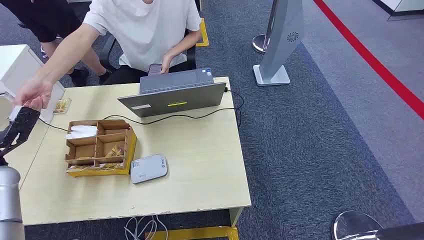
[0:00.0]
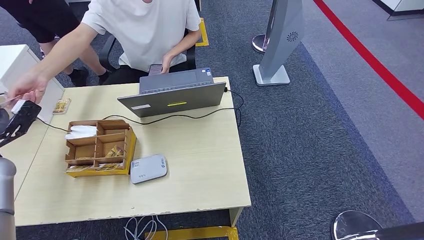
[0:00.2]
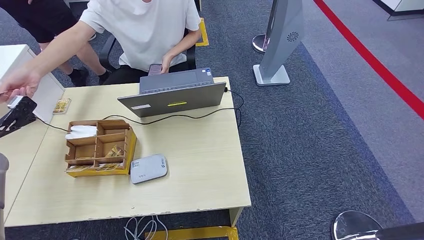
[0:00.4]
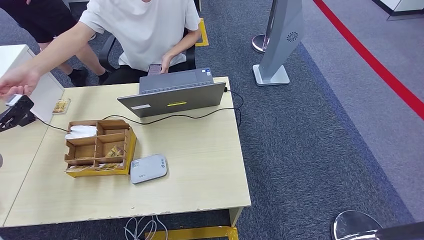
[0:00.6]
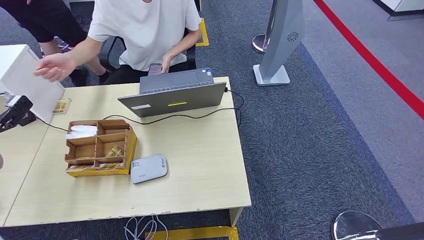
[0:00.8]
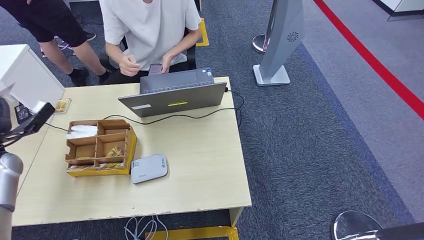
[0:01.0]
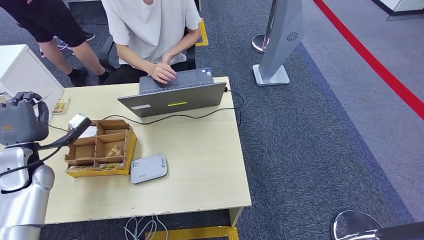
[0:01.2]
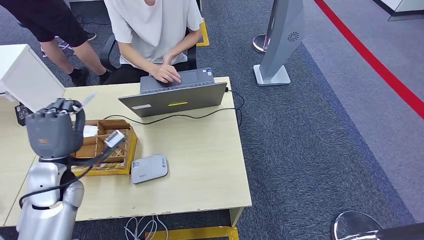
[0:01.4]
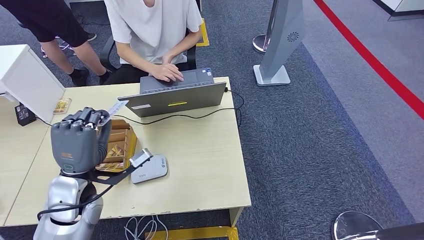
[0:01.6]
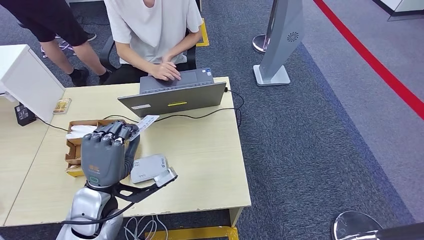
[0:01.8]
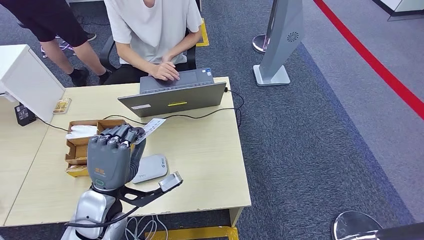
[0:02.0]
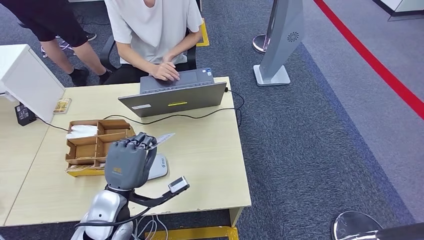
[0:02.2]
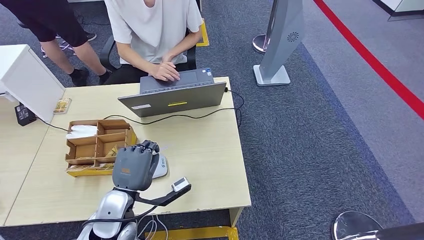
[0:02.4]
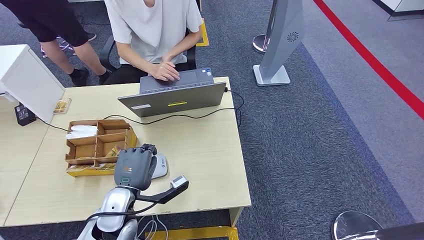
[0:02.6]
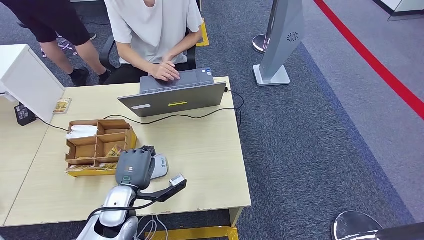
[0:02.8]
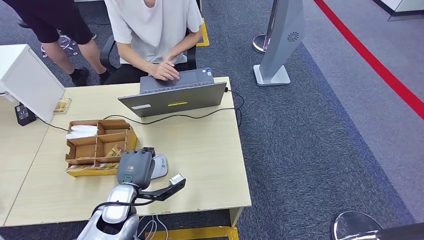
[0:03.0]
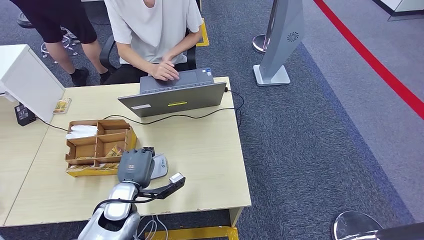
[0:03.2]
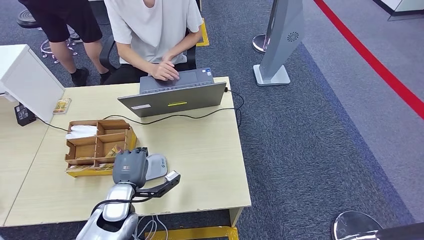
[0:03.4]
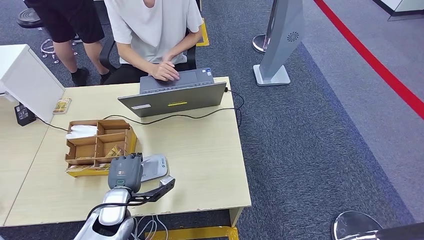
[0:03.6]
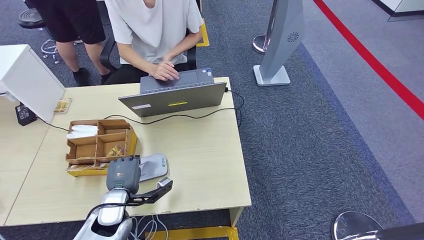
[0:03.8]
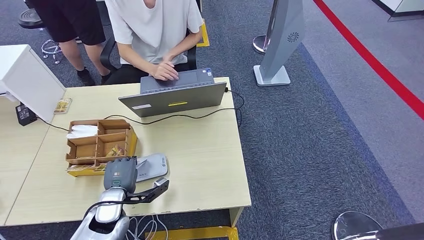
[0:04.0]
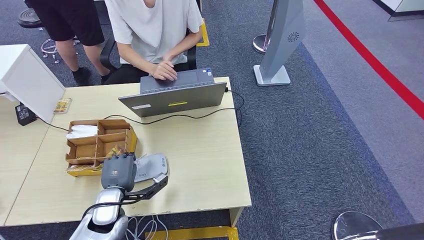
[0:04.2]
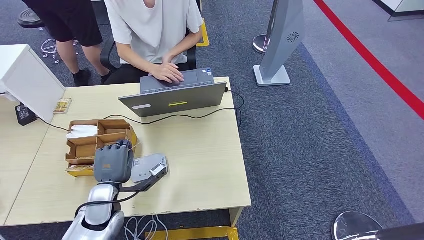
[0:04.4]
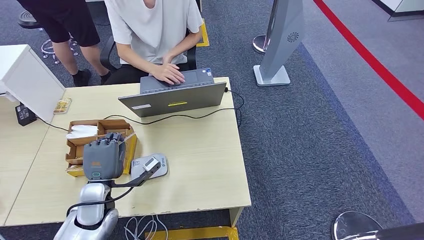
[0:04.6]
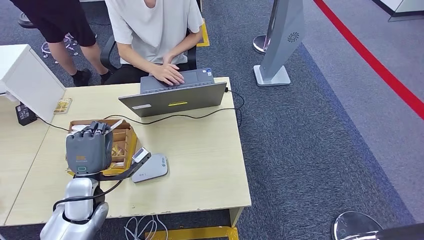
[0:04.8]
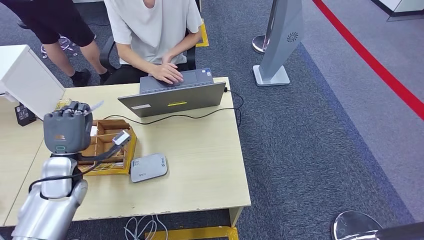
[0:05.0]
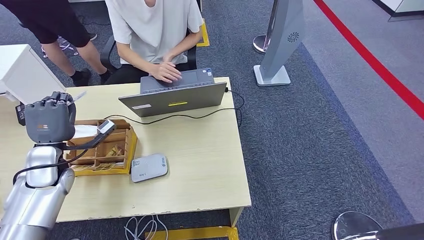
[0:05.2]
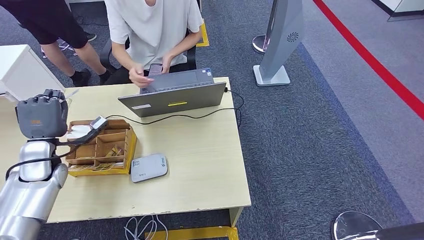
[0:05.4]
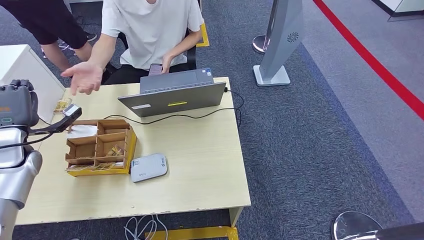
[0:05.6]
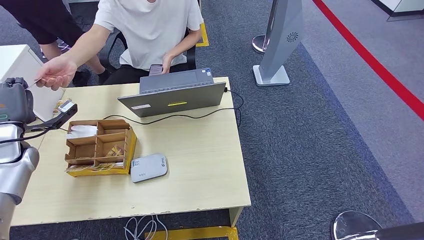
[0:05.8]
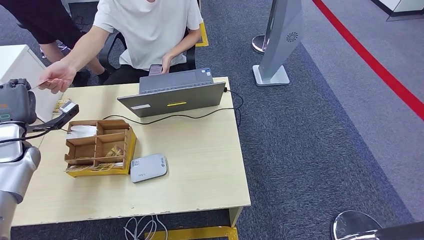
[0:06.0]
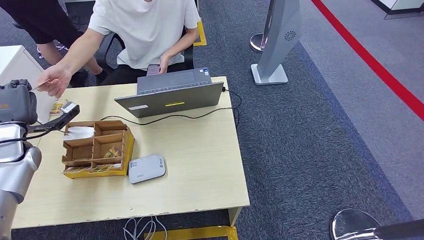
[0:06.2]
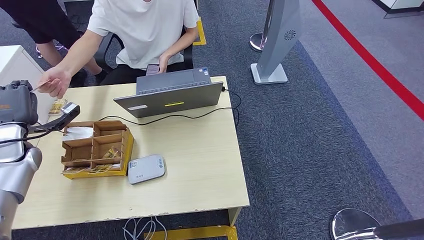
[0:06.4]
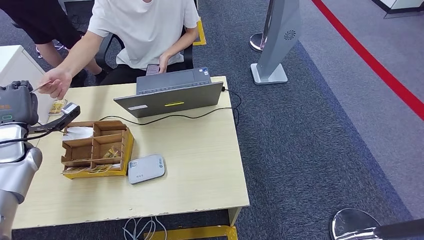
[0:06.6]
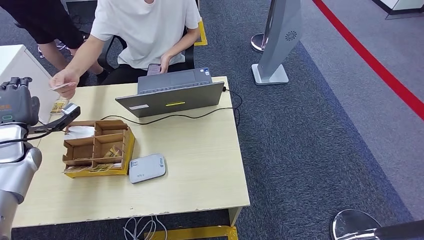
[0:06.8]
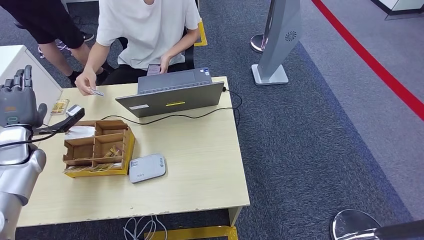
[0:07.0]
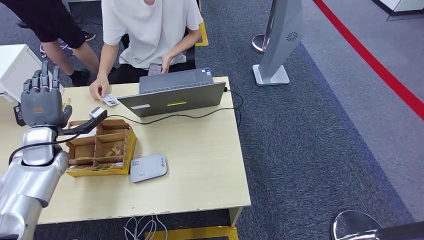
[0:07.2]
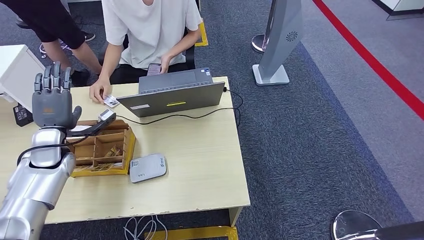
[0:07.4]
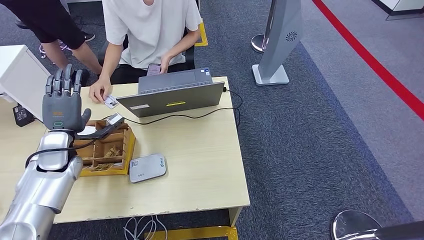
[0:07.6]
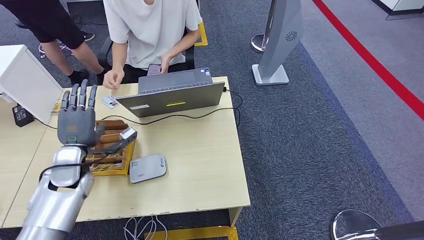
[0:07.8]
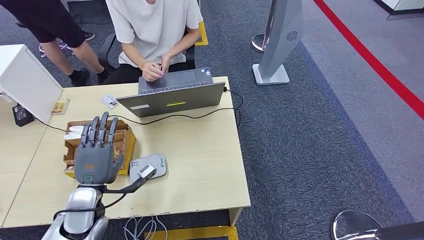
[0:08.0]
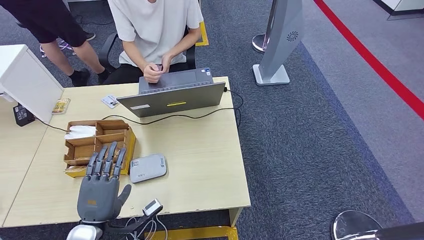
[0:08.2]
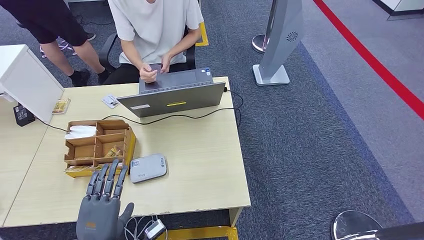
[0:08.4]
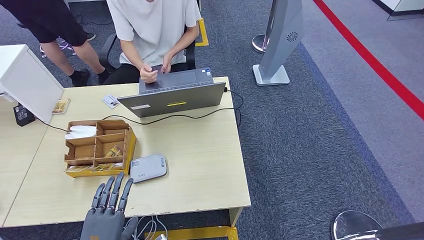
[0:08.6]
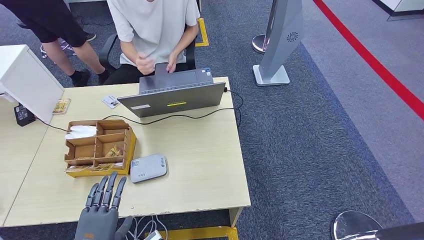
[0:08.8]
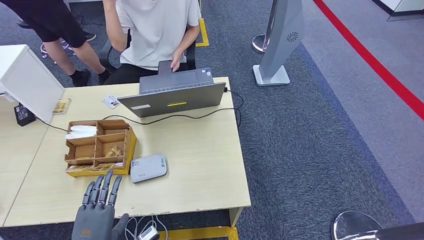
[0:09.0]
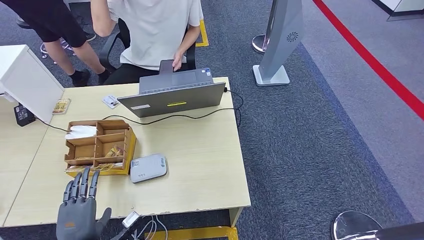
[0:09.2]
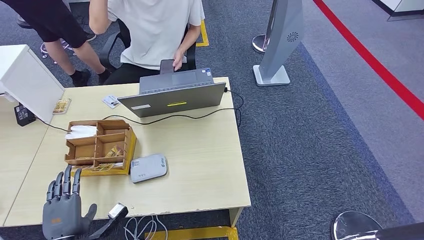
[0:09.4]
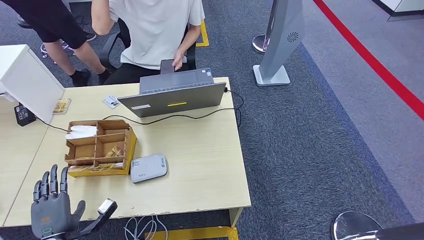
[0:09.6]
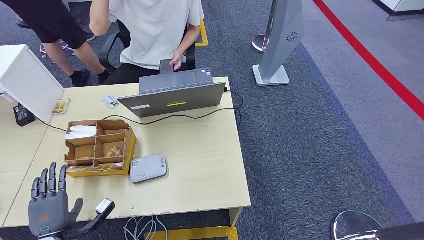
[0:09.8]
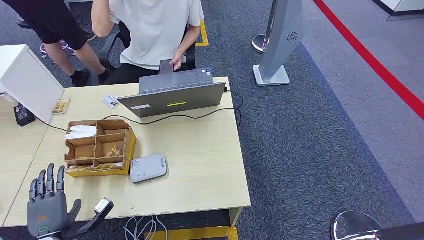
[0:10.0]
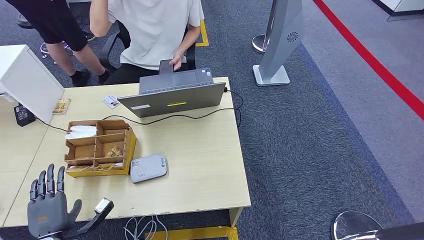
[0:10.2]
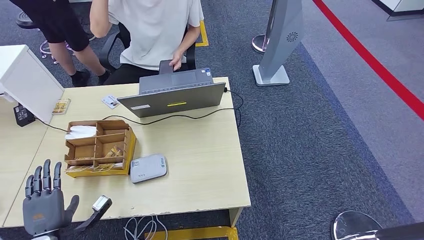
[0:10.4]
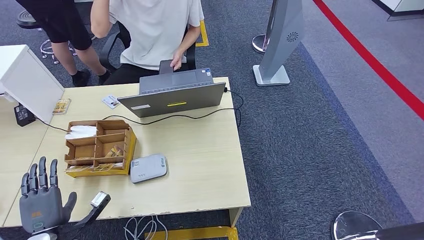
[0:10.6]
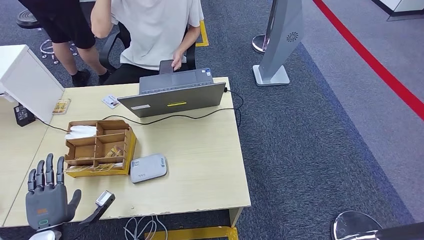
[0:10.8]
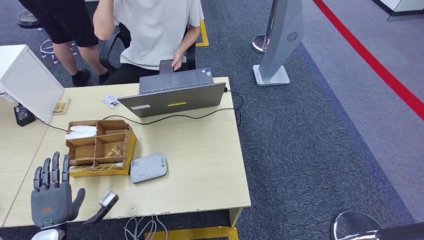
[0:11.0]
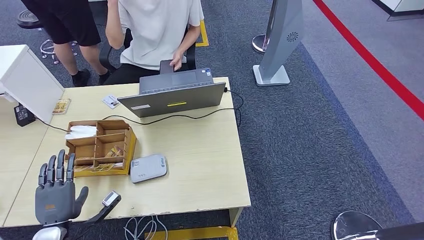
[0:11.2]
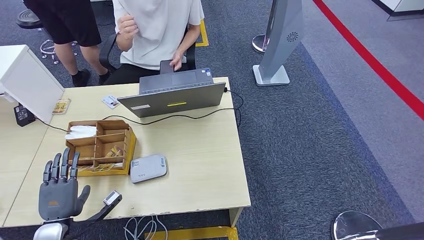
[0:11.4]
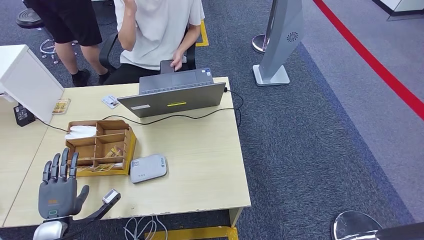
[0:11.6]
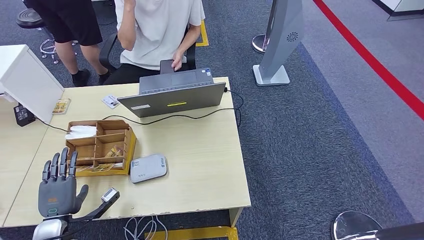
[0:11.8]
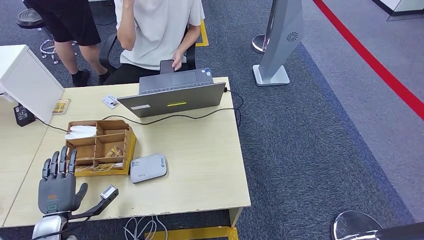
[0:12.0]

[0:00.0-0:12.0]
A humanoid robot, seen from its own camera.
Step, 0:00.0 to 0:01.4: Take the ID card from the person's hand.
Step, 0:01.6 to 0:05.4: Place the ID card on the card reader.
Step, 0:05.6 to 0:08.8: Hand the ID card to the person.
0:01.6 to 0:03.0: The left hand moves downward and to the right, some 10 cm.
0:03.0 to 0:04.4: There are only small adjustments of the hands.
0:04.4 to 0:06.0: The left hand shifts roughly 30 cm to the left, forward and upward.
0:06.0 to 0:07.6: The left hand travels to the right by about 10 cm.
0:07.6 to 0:09.0: The left hand goes some 30 cm backward.
0:09.0 to 0:10.4: The left hand goes some 15 cm to the left and forward.
0:10.4 to 0:12.0: The hands move only a little.

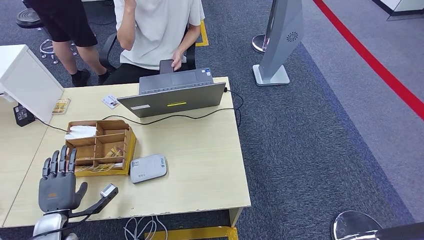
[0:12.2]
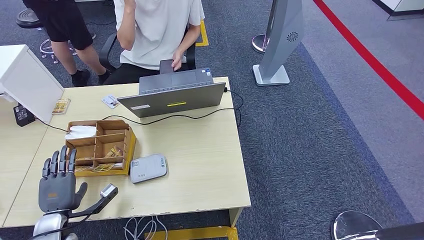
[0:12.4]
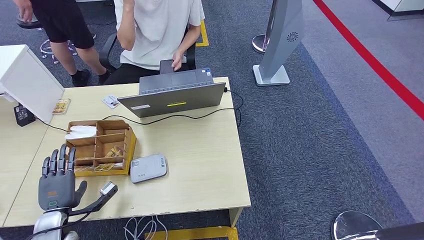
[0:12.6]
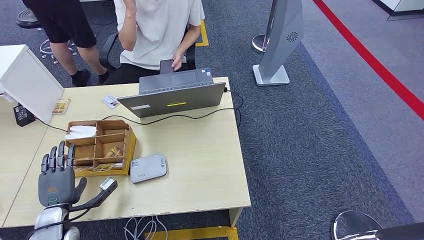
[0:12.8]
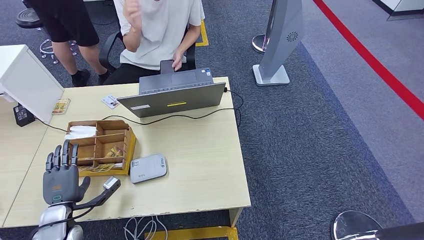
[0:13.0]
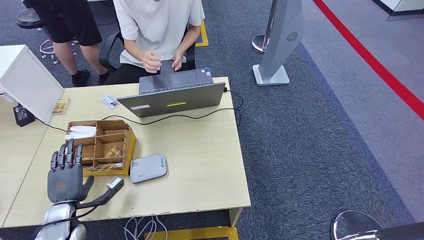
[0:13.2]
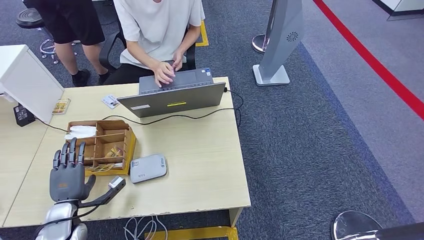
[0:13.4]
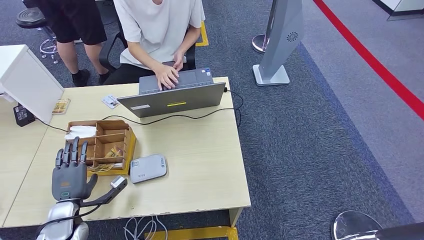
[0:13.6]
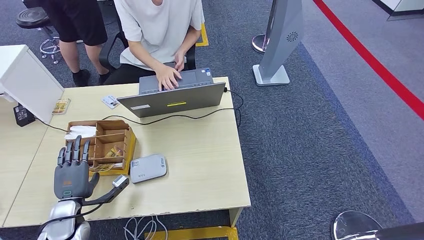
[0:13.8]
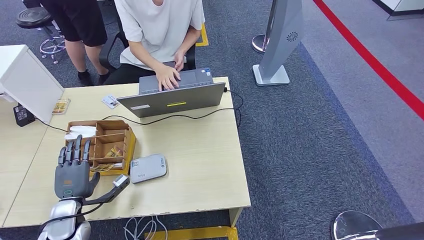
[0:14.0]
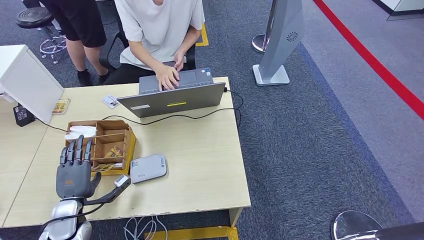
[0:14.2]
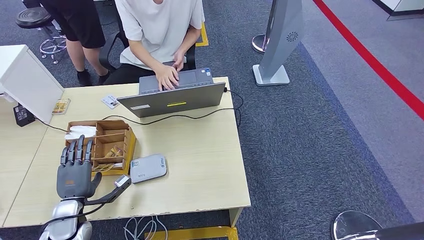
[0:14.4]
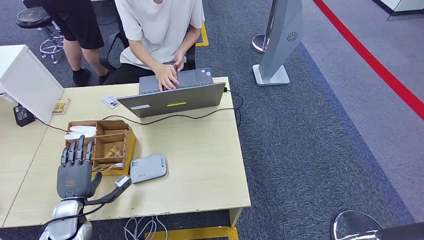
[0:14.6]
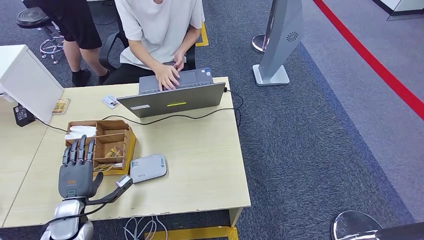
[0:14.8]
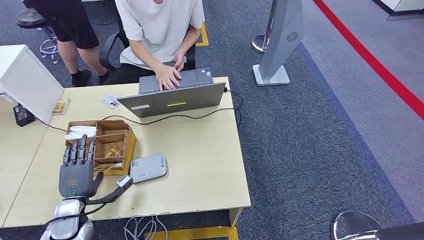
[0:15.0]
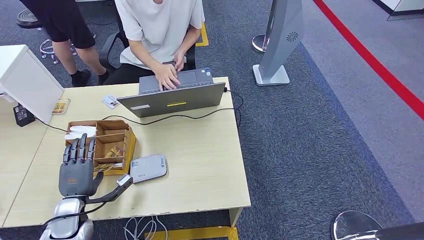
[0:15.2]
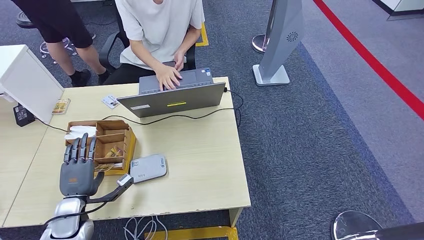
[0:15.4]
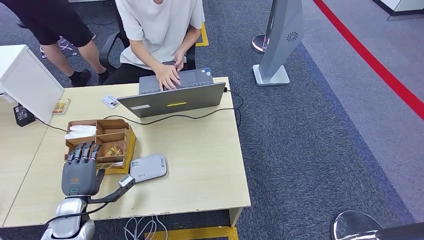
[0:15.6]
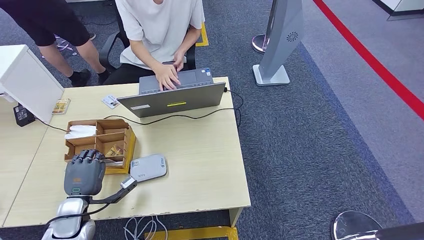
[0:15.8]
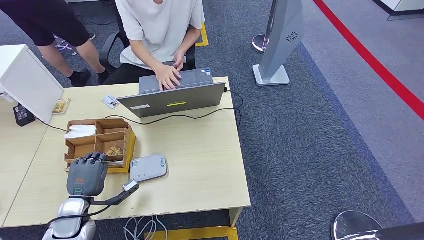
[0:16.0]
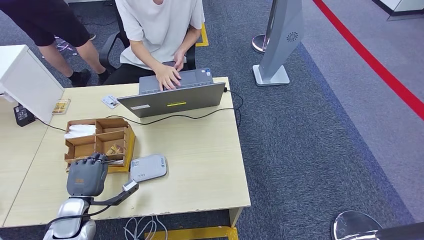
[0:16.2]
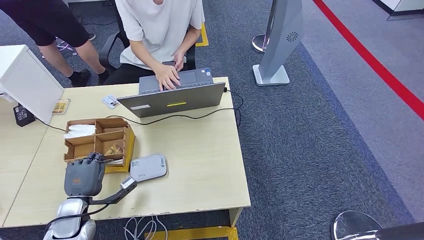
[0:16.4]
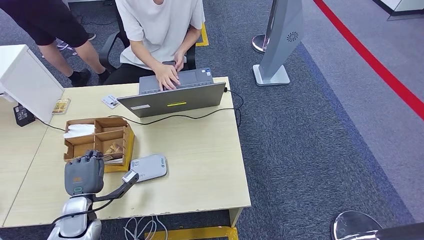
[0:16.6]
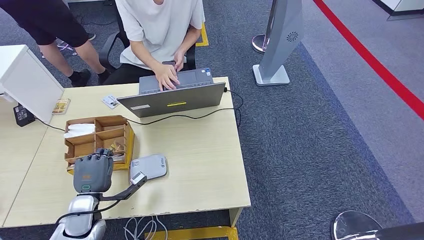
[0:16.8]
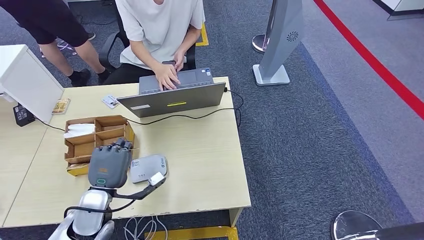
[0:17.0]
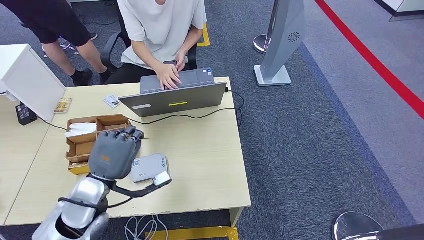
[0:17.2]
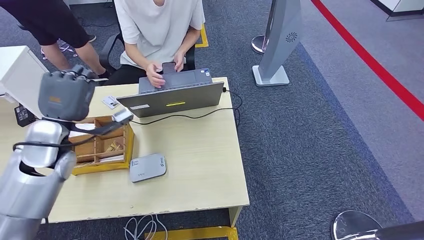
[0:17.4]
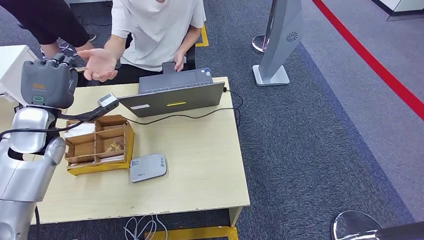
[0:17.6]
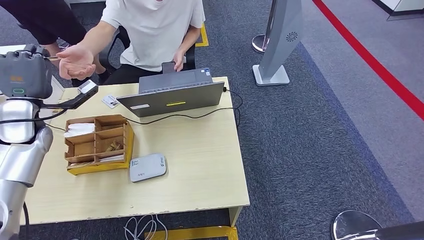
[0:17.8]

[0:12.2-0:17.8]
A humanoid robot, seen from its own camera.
Step, 0:12.2 to 0:16.8: Pick up the room key from the key card box.
0:12.2 to 0:13.6: The hands stay close to where they were, moving slightly.
0:13.6 to 0:15.0: Both hands stay put.
0:15.0 to 0:16.4: The hands move only a little.
0:16.4 to 0:17.8: The left hand heads upward and forward, covering approximately 30 cm.
